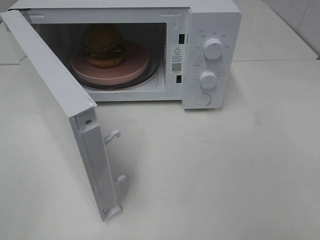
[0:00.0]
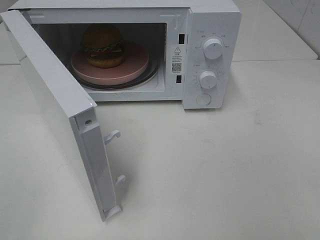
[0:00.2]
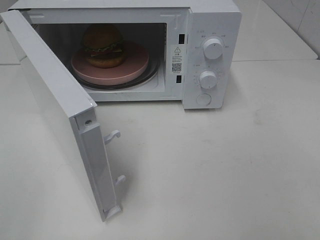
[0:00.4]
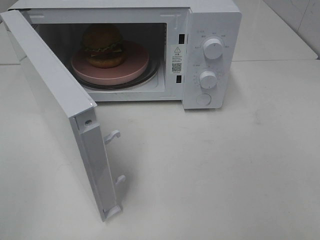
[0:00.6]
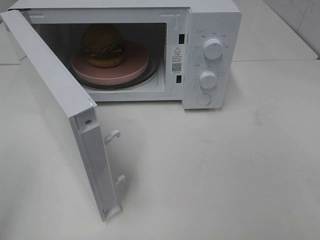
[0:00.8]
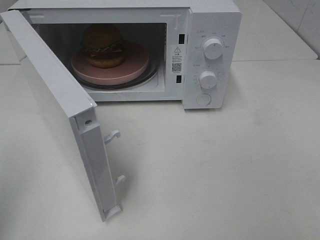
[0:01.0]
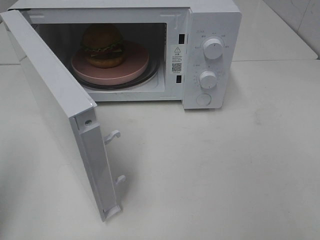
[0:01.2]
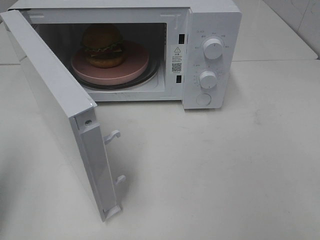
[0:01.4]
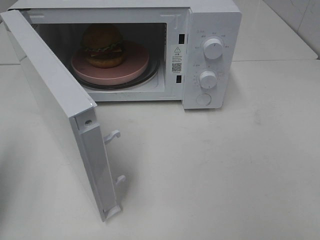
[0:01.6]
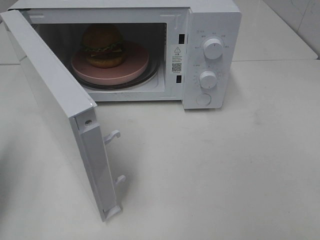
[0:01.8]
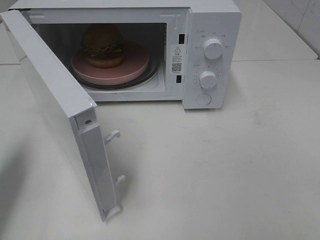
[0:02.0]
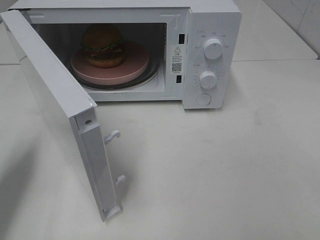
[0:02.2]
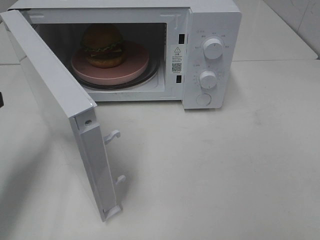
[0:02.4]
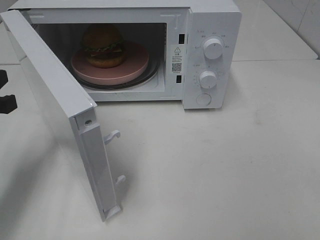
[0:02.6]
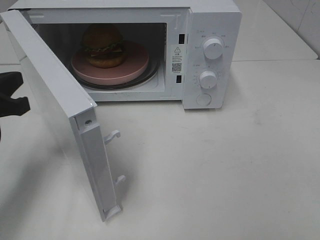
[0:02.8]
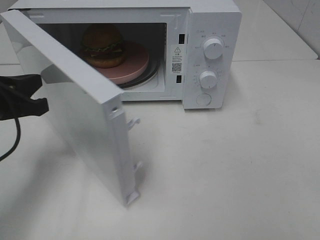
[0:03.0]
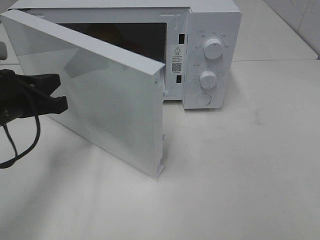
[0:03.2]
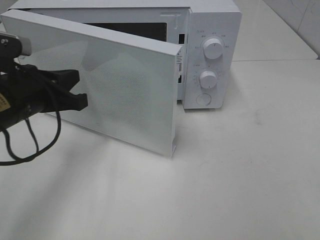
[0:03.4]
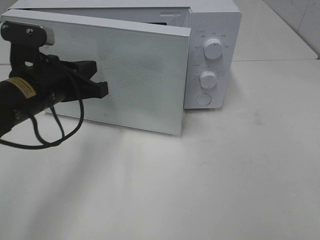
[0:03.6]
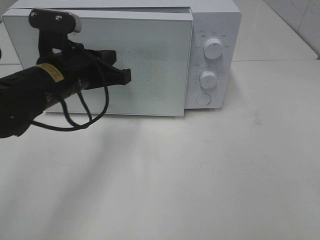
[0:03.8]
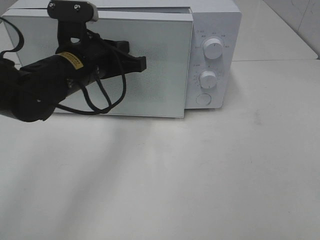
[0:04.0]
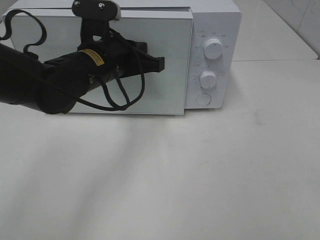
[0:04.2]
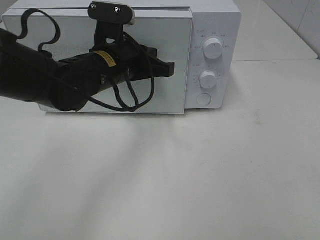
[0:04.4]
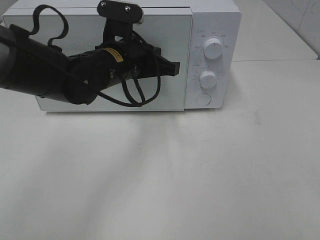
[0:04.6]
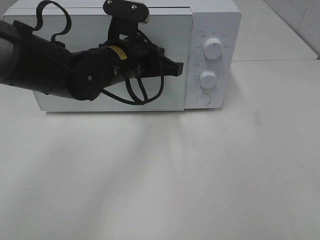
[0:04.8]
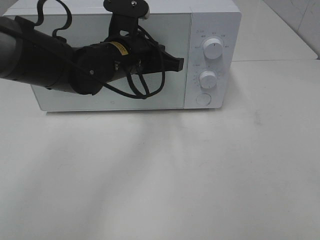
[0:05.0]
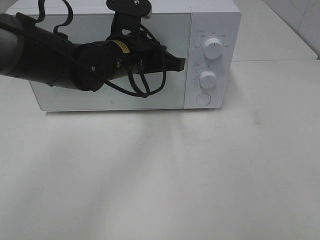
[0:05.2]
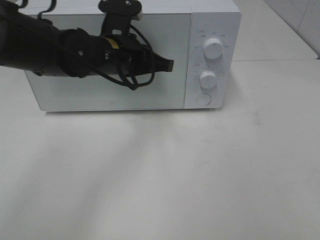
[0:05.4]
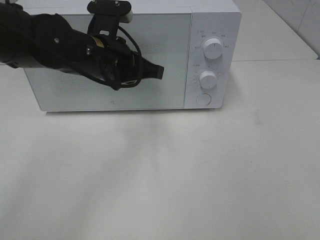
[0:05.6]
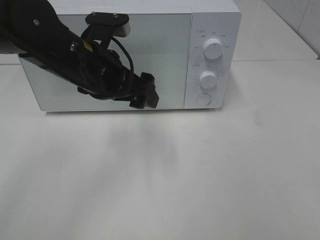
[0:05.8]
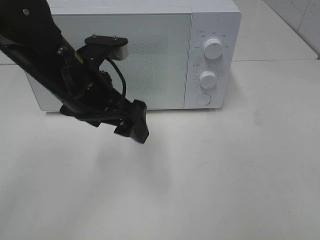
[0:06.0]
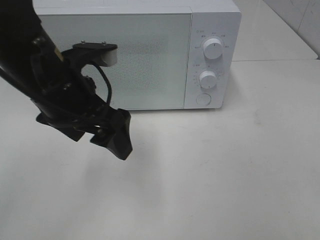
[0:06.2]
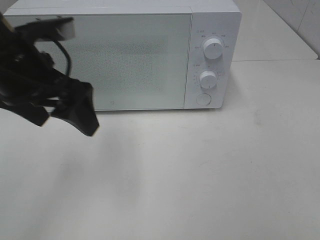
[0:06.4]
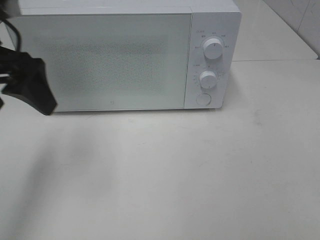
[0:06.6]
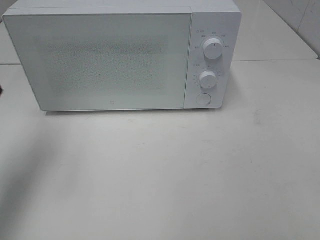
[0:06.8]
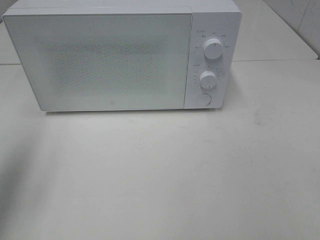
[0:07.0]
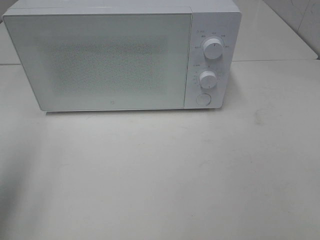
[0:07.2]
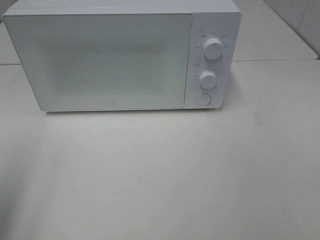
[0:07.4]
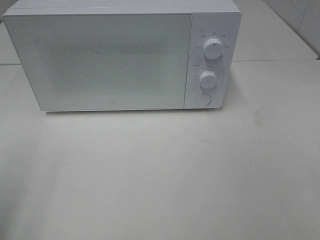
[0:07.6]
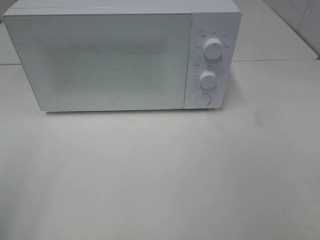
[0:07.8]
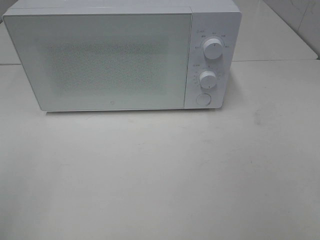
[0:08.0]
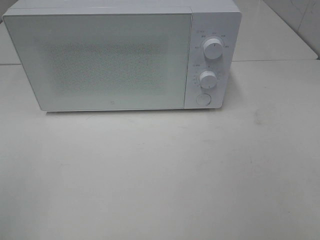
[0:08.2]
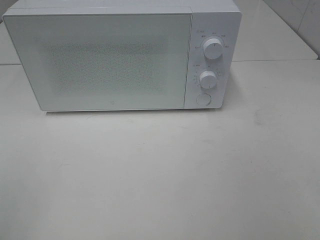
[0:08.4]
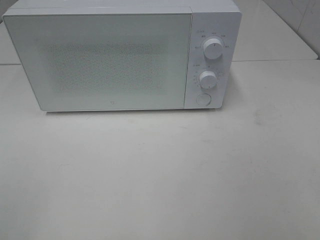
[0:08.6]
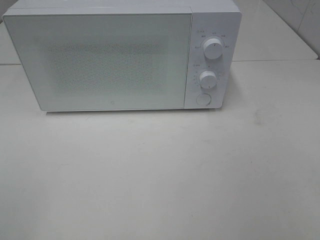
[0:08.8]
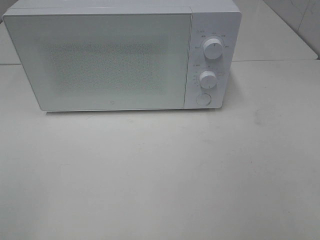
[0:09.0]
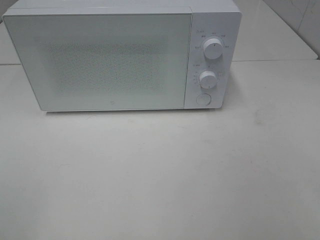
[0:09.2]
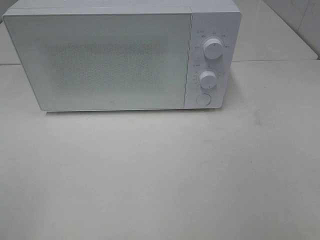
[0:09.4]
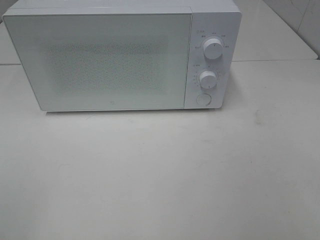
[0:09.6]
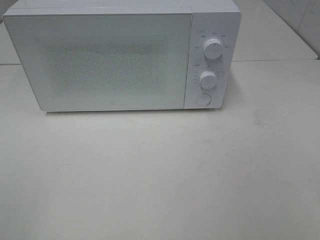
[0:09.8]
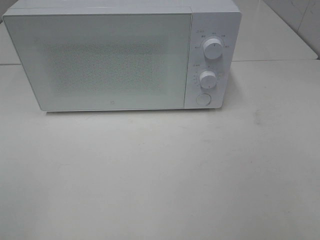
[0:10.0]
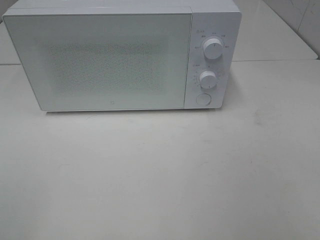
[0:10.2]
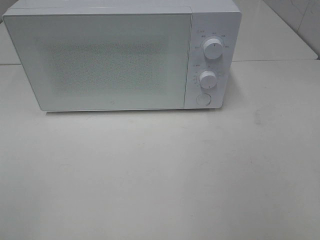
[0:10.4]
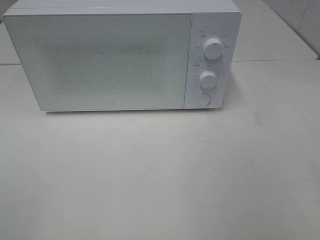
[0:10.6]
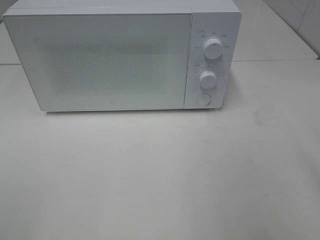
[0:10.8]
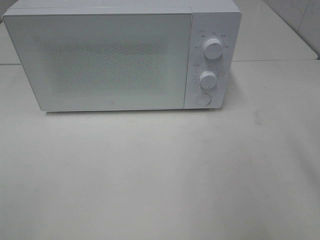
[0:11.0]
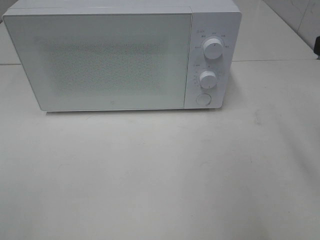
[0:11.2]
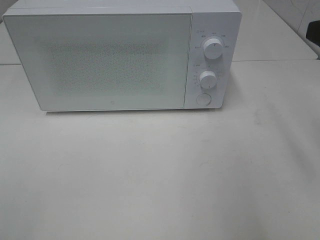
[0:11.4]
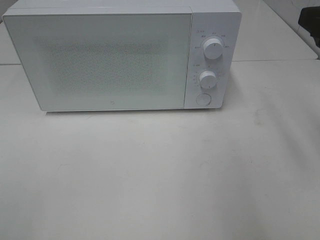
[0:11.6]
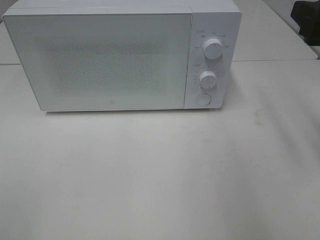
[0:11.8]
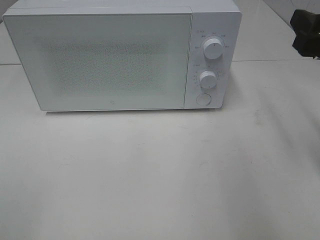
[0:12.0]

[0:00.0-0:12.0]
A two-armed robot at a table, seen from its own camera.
Task of the whole recording: Heat the burger.
Step, 0:00.0 to 0:05.6: Left hand: close the microwave door.
0:00.0 to 0:01.6: The left gripper shifts some 15 cm forward, and closes up.
0:01.6 to 0:03.0: The left gripper heads to the right, forward and downward, covering about 15 cm.
0:03.0 to 0:04.4: The left gripper shifts approximately 20 cm to the right and forward.
0:04.4 to 0:06.0: The left gripper heads backward, covering some 5 cm, and opens.
0:06.0 to 0:07.6: The left gripper goes approximately 30 cm to the left and backward.
0:10.4 to 0:12.0: The right gripper travels forward by approximately 15 cm.

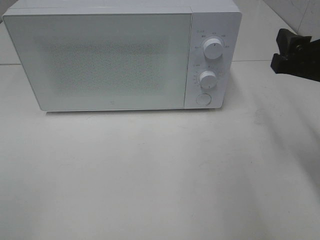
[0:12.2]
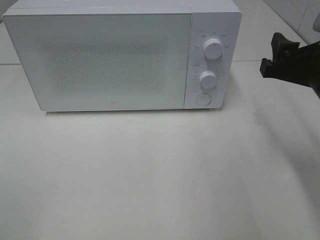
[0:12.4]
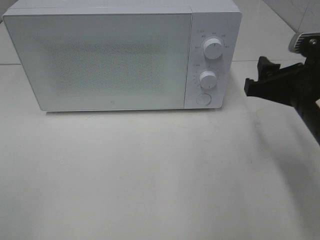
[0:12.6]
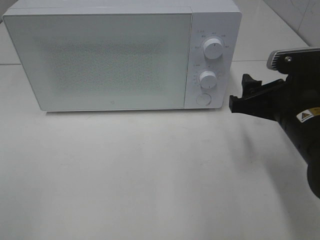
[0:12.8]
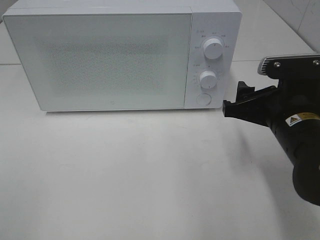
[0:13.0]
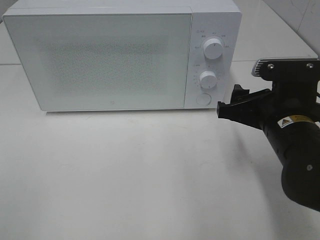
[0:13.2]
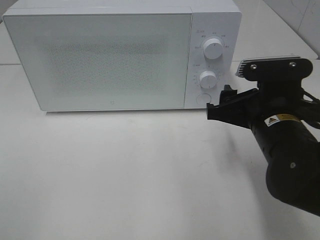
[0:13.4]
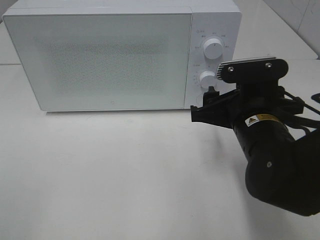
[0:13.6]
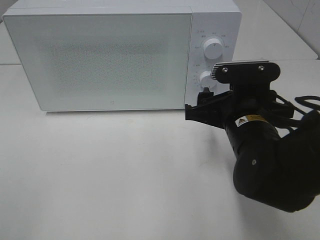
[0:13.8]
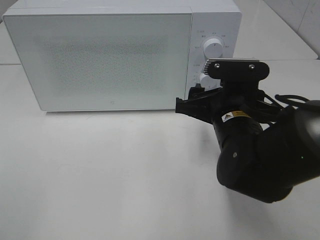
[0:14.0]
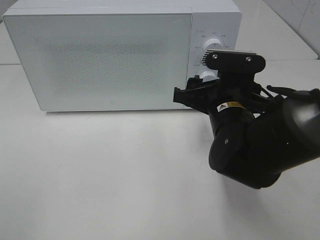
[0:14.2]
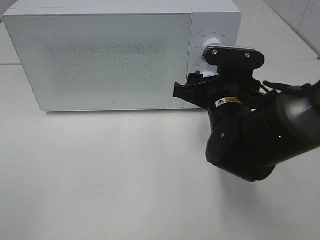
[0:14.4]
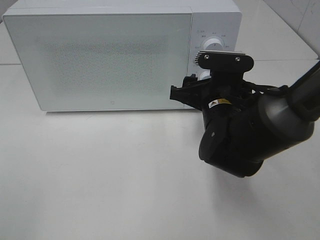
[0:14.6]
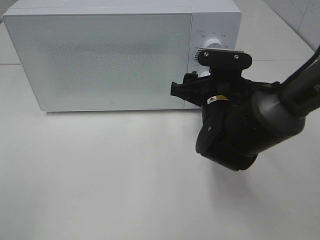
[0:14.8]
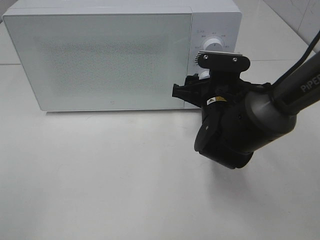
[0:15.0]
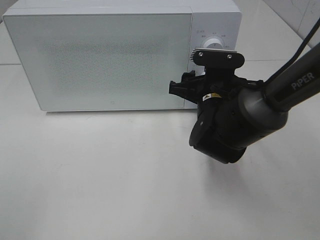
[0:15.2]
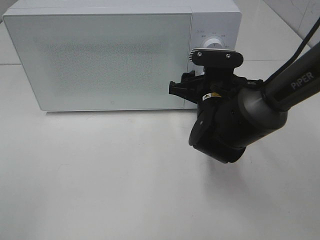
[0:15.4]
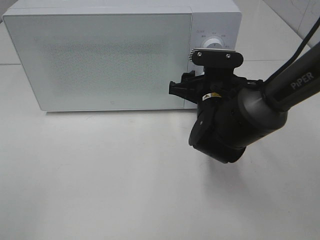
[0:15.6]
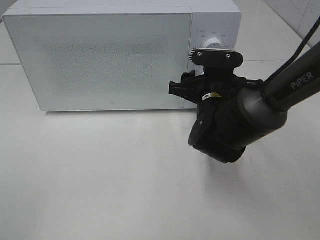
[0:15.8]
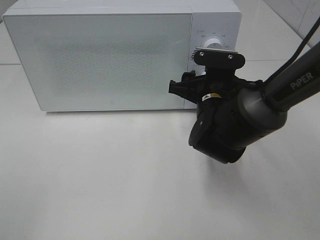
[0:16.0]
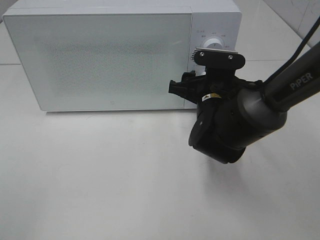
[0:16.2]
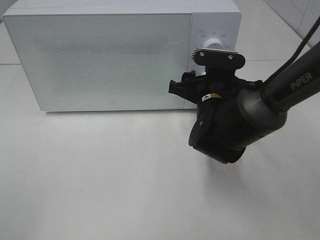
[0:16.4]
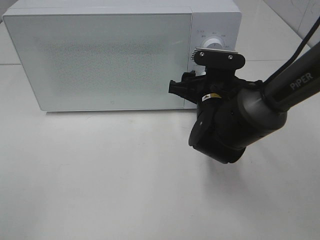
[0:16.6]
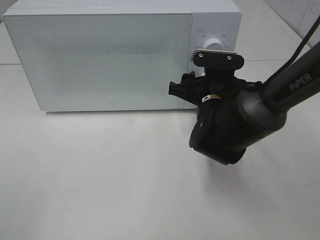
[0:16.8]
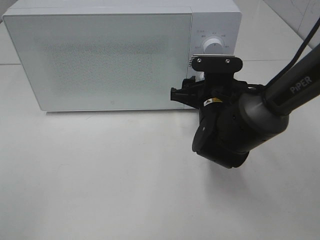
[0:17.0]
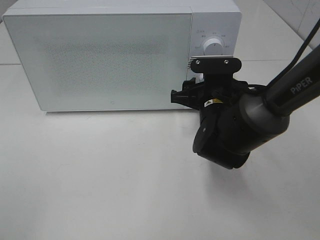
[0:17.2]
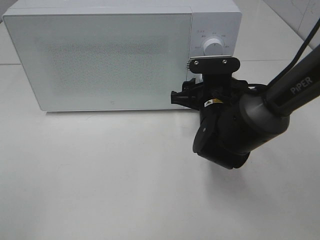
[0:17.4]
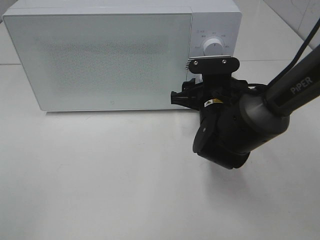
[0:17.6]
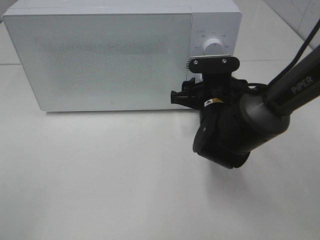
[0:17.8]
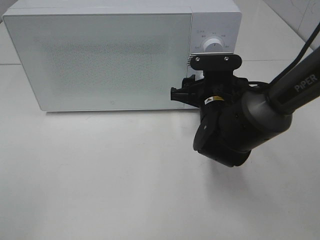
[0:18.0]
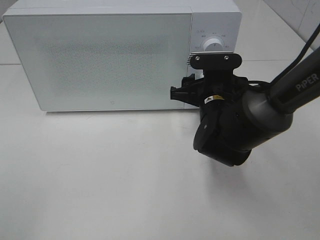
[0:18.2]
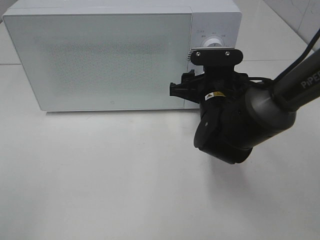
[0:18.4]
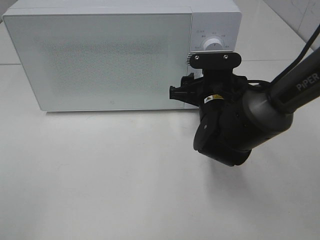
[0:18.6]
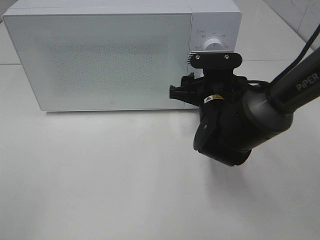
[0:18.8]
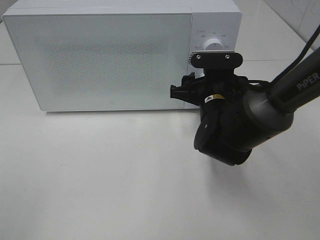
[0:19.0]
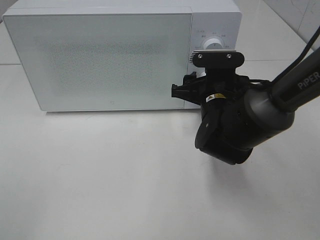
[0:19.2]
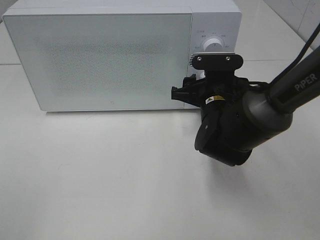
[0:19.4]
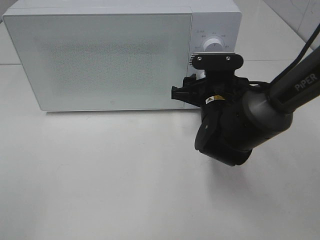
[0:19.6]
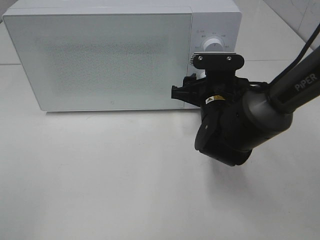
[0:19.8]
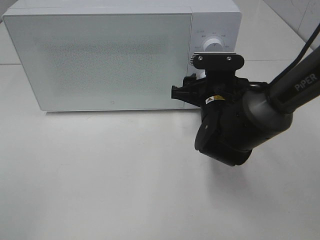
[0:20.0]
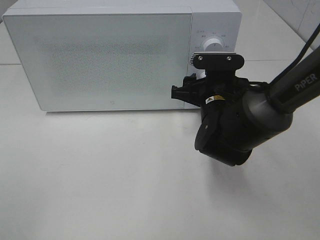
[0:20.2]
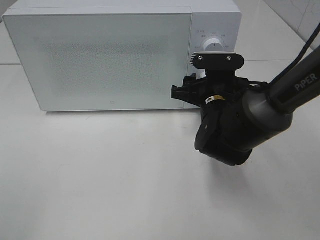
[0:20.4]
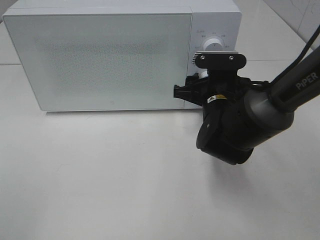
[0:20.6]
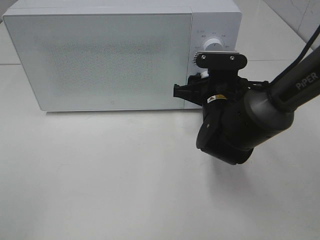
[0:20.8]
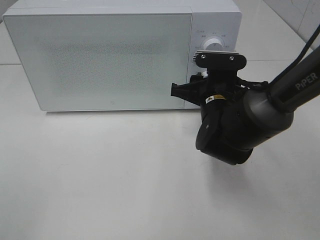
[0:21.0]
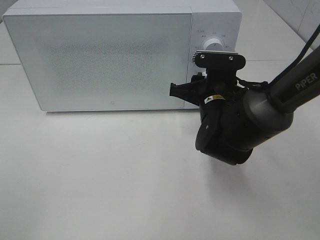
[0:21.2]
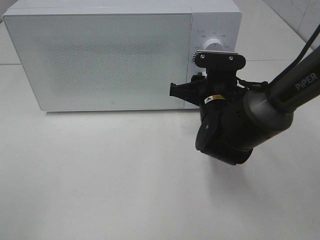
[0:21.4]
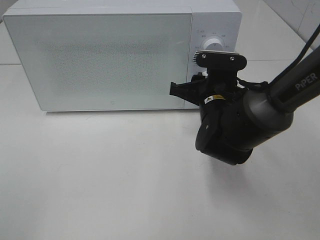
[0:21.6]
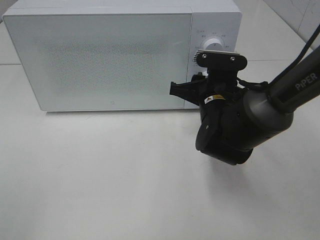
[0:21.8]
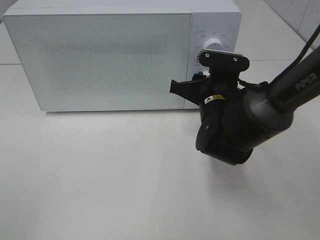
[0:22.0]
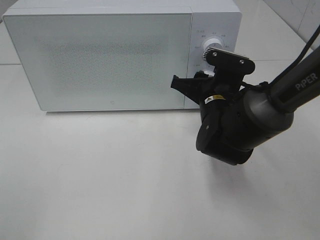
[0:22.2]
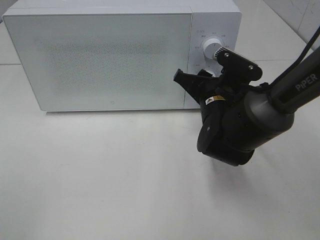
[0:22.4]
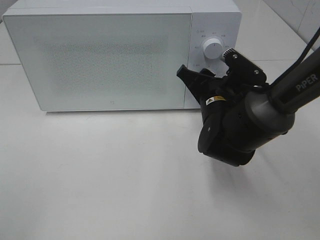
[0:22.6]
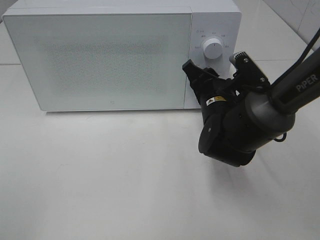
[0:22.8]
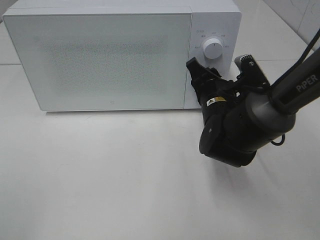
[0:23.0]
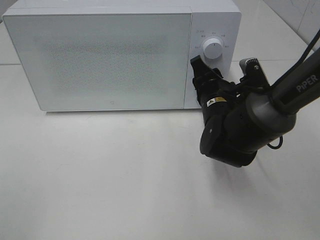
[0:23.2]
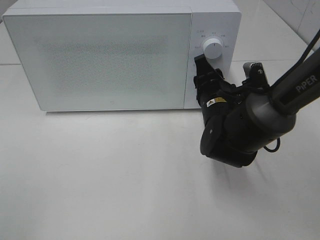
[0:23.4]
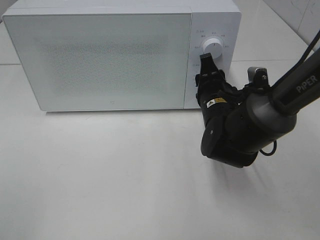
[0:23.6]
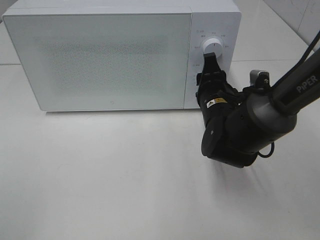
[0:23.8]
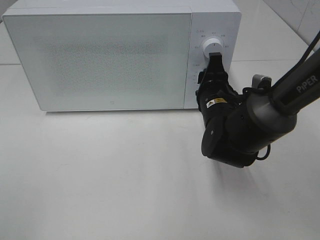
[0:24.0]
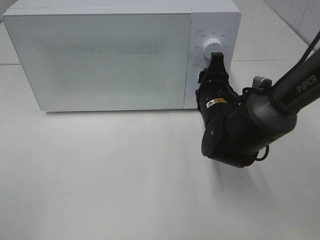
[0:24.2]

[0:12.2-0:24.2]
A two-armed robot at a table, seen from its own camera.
Task of the whole recording: Heat the burger.
0:12.2 to 0:13.8: The right gripper heads to the left and downward, covering some 15 cm.
0:13.8 to 0:15.2: The right gripper travels forward by roughly 10 cm.
0:15.2 to 0:16.6: Both grippers stay about where they are.
0:16.6 to 0:18.2: The grippers make only small movements.
0:18.2 to 0:19.8: Both grippers stay about where they are.
0:19.8 to 0:21.2: Both grippers stay about where they are.
